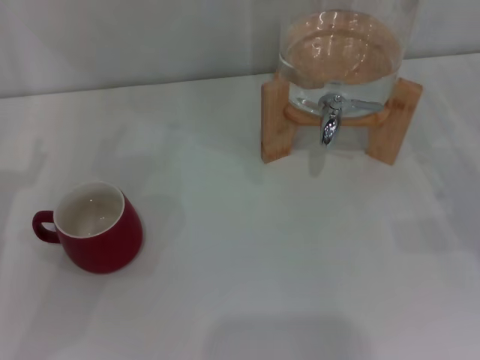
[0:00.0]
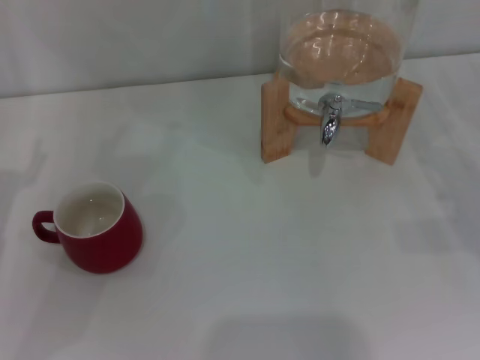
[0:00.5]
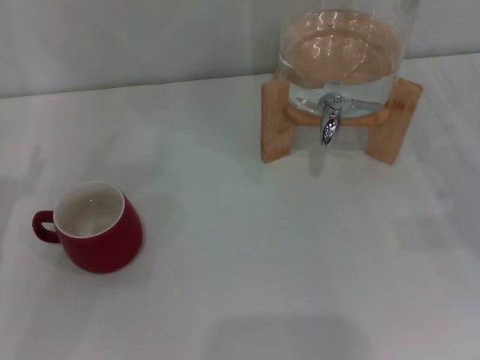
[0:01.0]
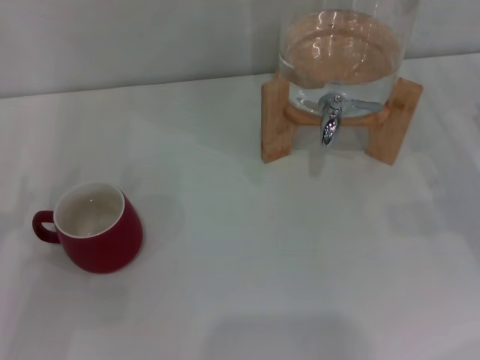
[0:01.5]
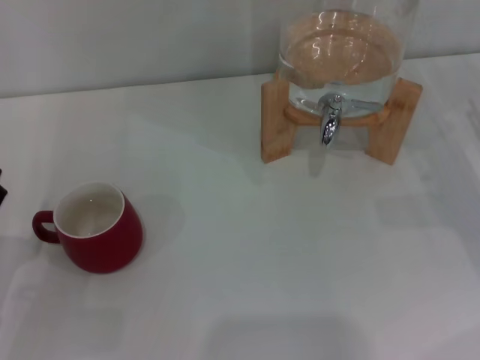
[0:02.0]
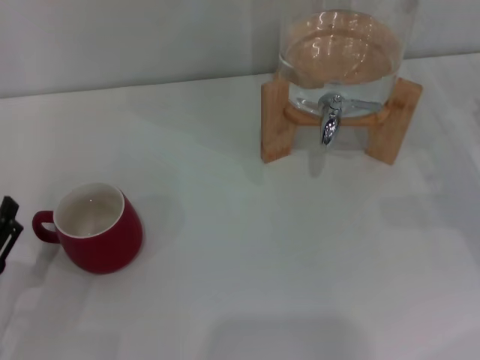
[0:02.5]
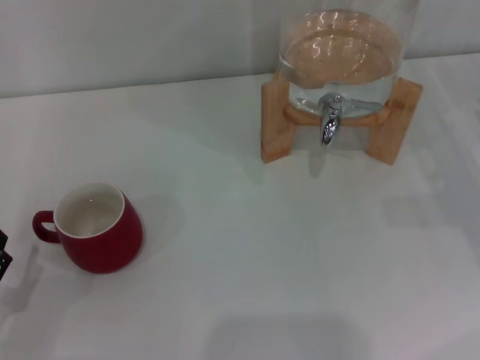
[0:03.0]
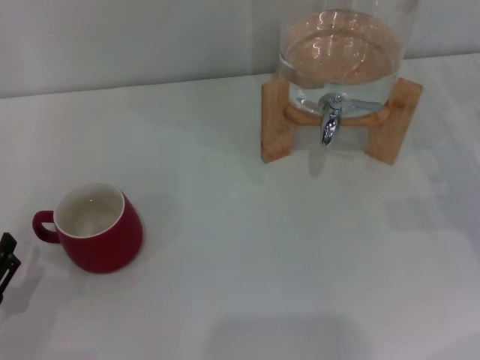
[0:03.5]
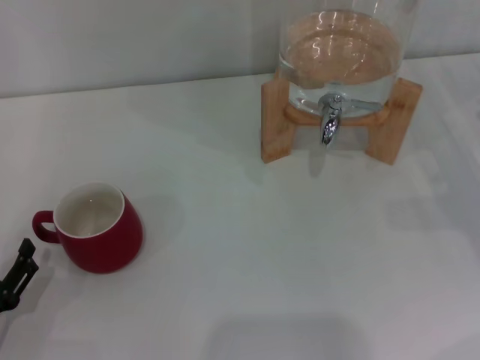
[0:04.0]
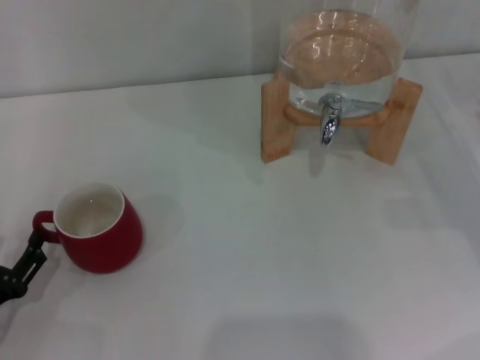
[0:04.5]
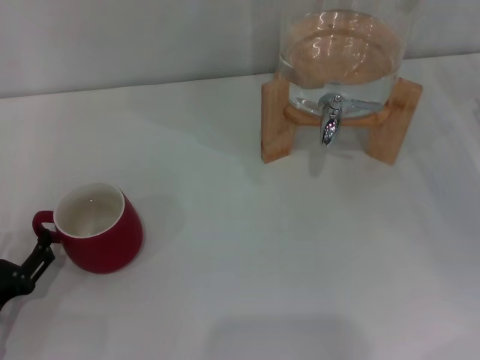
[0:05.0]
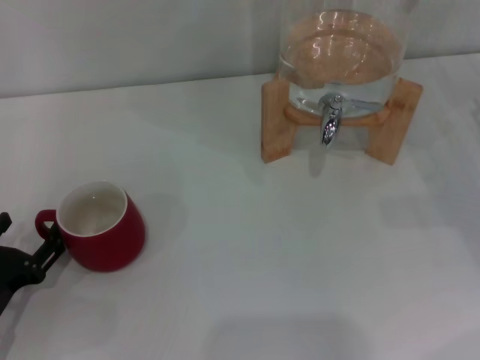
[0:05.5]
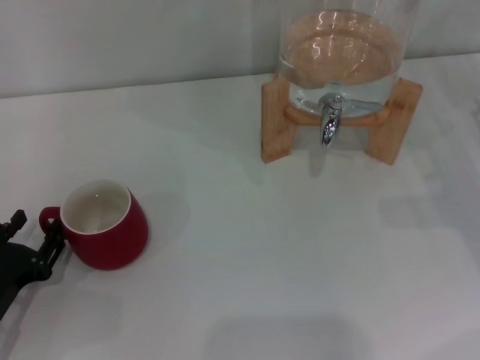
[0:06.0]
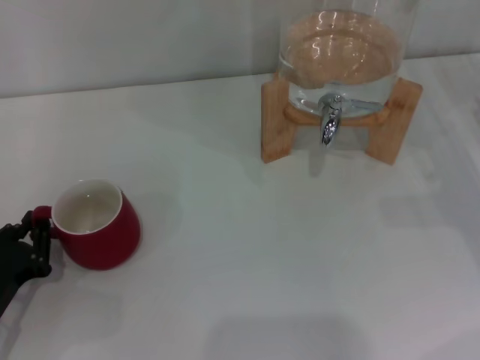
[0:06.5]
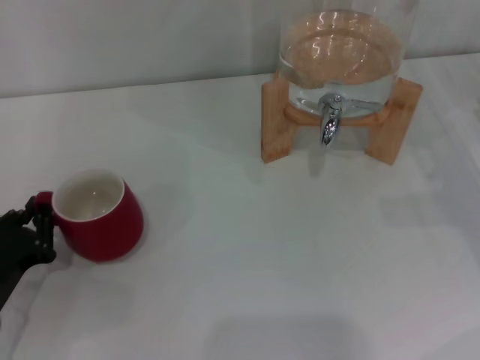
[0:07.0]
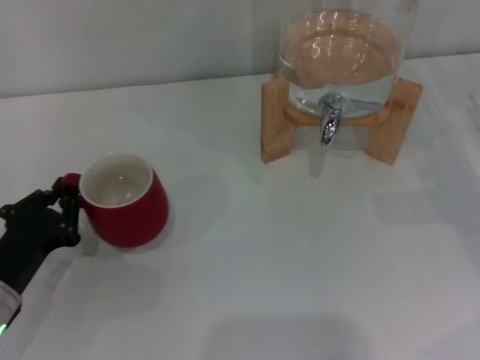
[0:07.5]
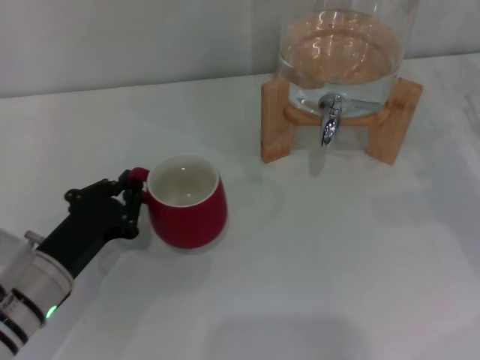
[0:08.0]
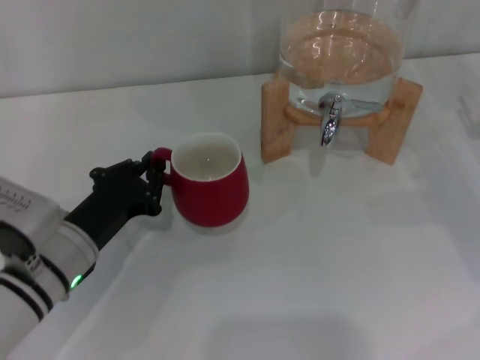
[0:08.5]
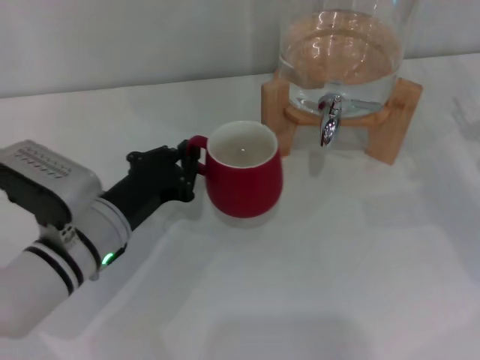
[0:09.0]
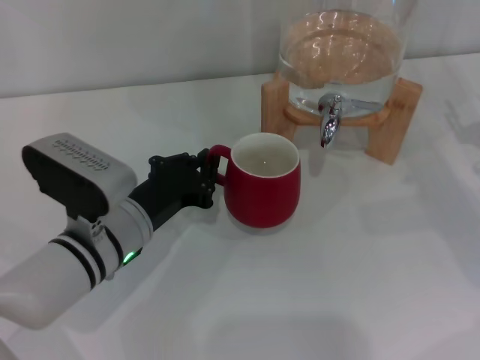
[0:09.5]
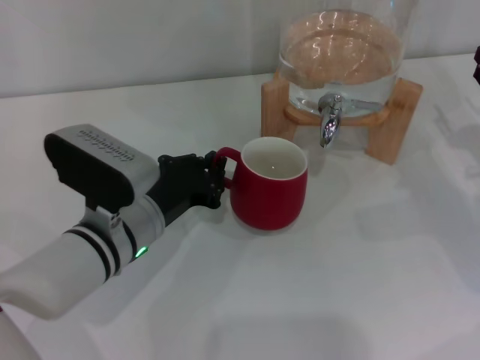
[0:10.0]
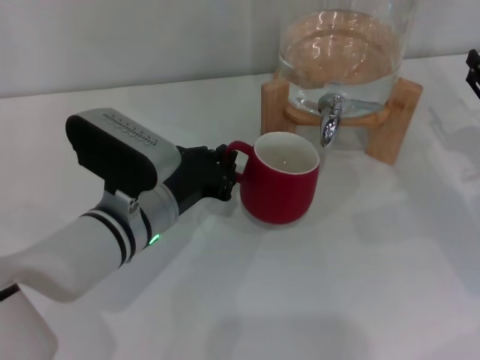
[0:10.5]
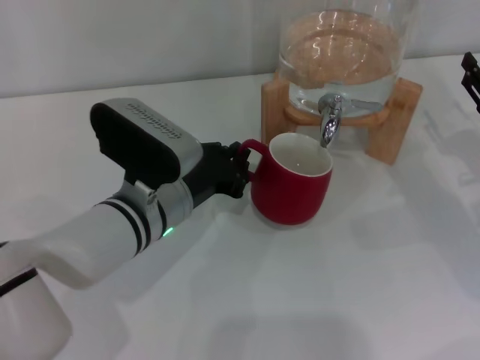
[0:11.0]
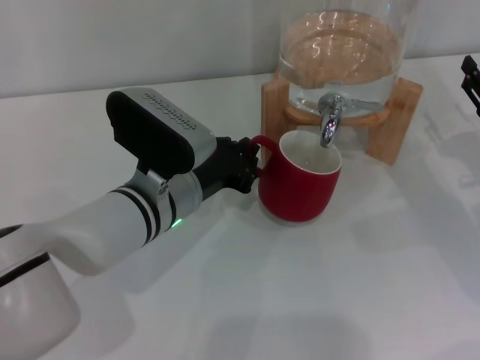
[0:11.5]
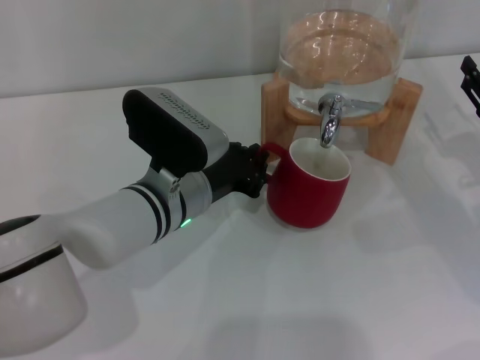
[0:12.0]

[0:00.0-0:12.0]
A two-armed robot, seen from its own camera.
Task of the whole recording: the left gripper pick up the red cup and place it horizontally under the faucet, the right gripper turn on the faucet to fill the cup, and then turn off the faucet.
0:02.0 to 0:04.0: The left gripper moves roughly 5 cm.
0:04.0 to 0:06.0: The grippers move only a little.
0:06.0 to 0:08.0: The left gripper shifts roughly 5 cm to the right, and closes up.
0:08.0 to 0:10.0: The left gripper heads to the right, covering roughly 10 cm.
0:10.0 to 0:12.0: The left gripper moves to the right, some 5 cm.

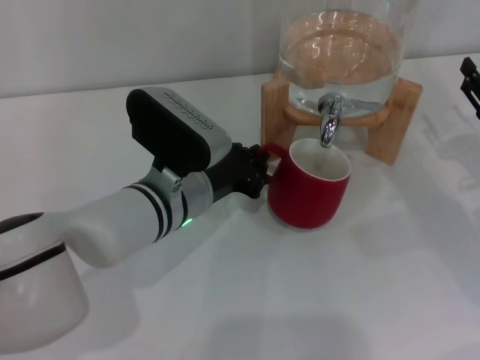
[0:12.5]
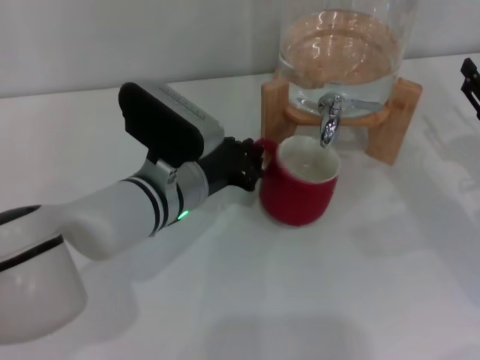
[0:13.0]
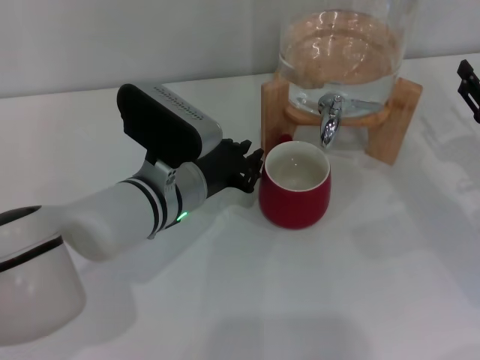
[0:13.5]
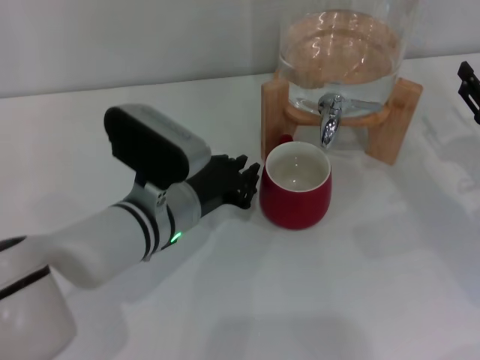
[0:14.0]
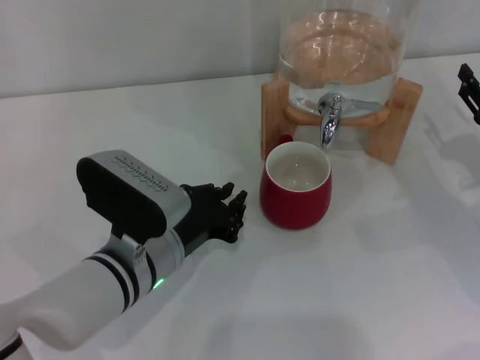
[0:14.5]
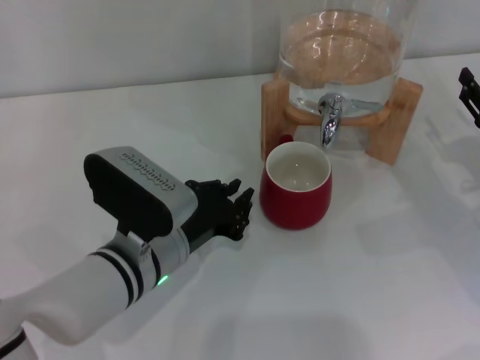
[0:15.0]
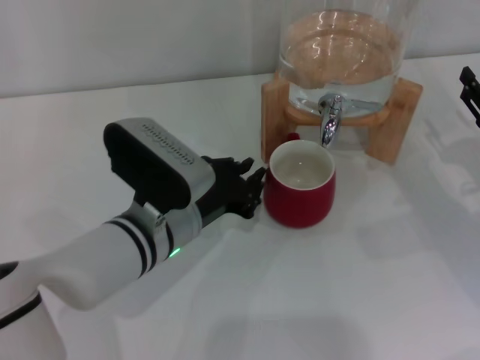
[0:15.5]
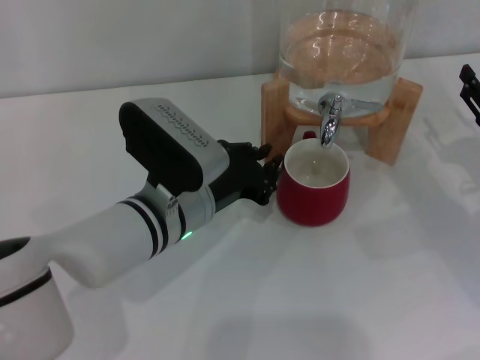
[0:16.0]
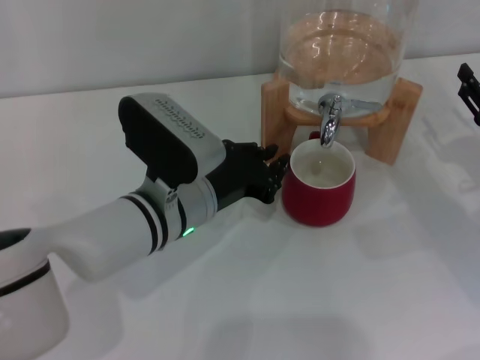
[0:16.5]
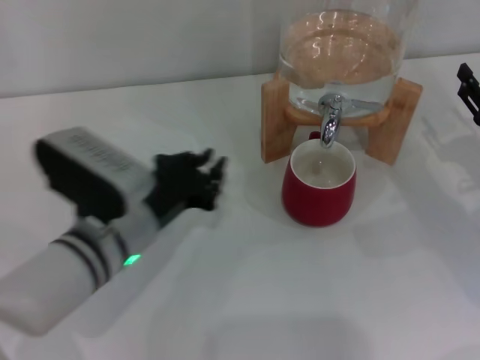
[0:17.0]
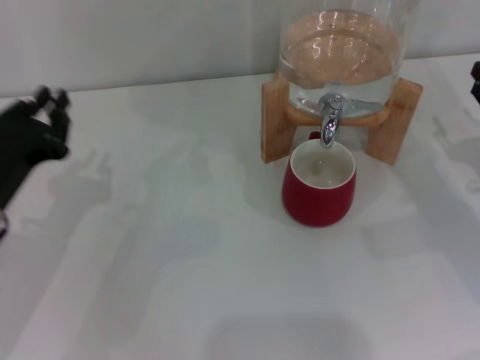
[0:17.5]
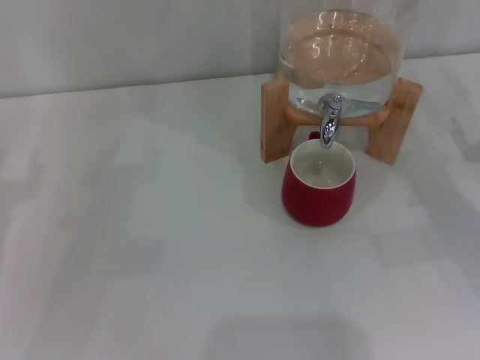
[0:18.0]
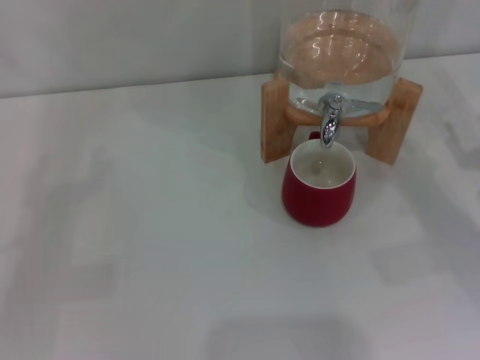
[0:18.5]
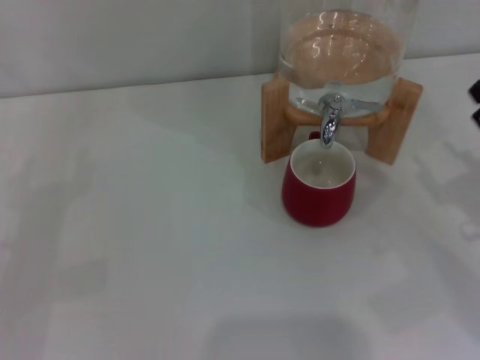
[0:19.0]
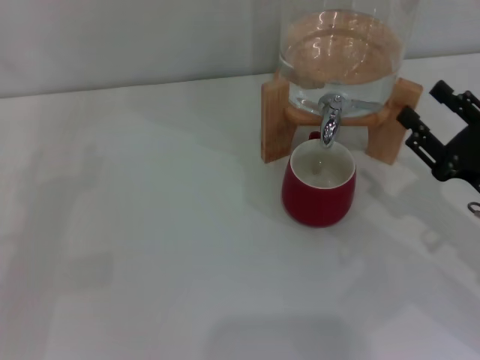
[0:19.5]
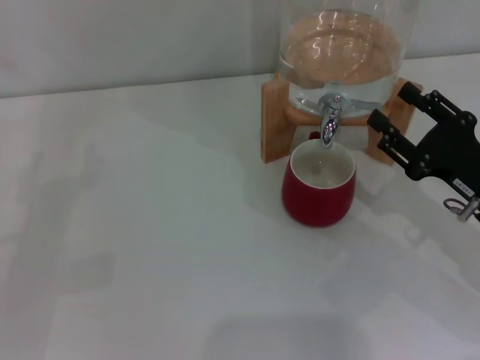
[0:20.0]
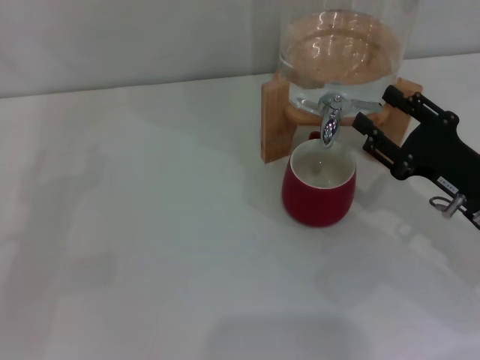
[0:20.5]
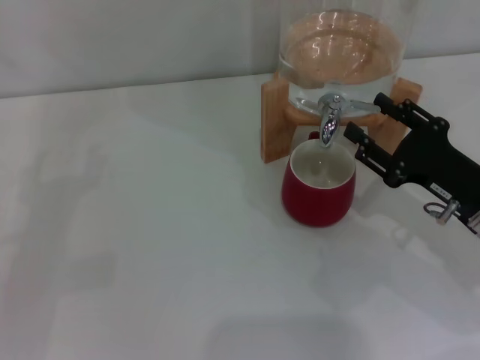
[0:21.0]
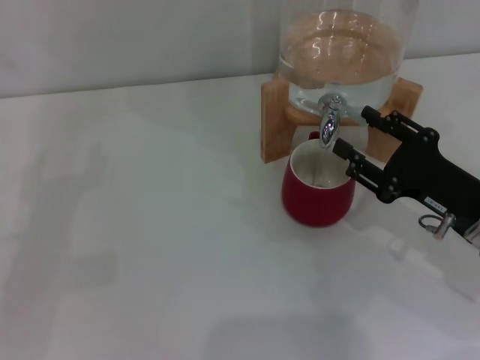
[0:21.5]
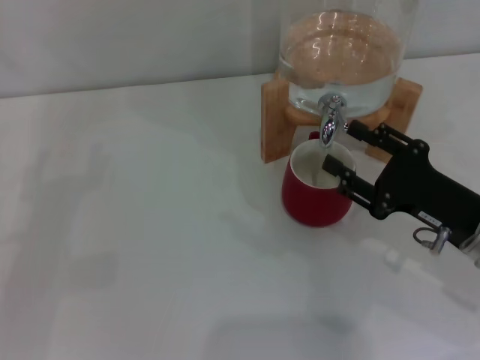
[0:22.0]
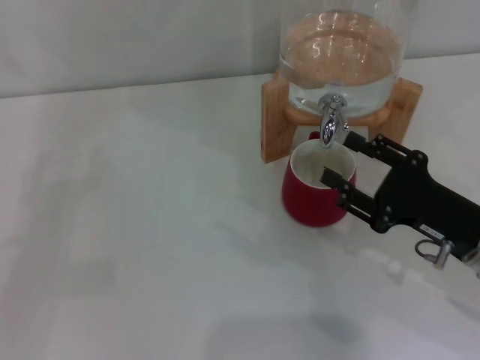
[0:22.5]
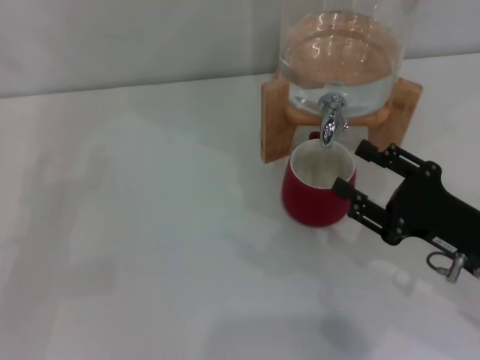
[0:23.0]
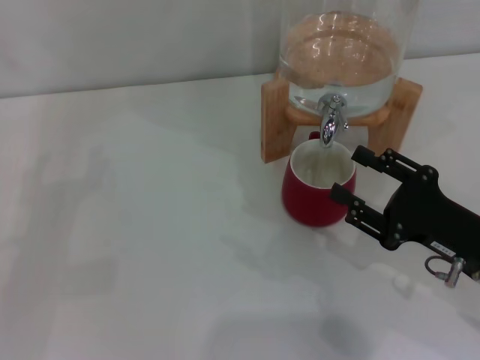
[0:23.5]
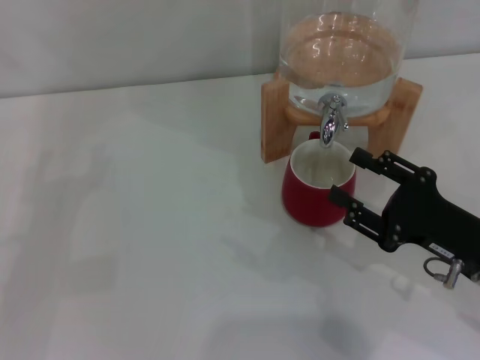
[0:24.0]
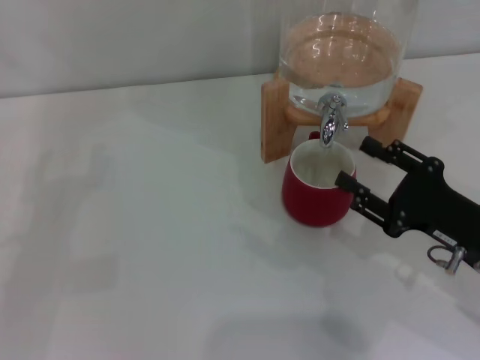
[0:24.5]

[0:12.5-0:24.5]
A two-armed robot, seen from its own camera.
Task of the whole recording: the left gripper pick up the red cup and place it horizontally under the faucet, the right gripper turn on the faucet to fill the cup, and then turn off the faucet.
Step, 0:14.5 to 0:22.5: Open the dispenser valve and fill the cup with water with the right gripper.
0:12.5 to 0:14.5: The left gripper goes approximately 5 cm backward.
0:14.5 to 0:16.5: The left gripper changes place by some 5 cm.
0:16.5 to 0:18.5: The left gripper is displaced to the left by approximately 25 cm, and opens its fingers.
0:18.5 to 0:20.5: The right gripper shifts some 10 cm to the left.
0:20.5 to 0:24.5: The grippers make only small movements.

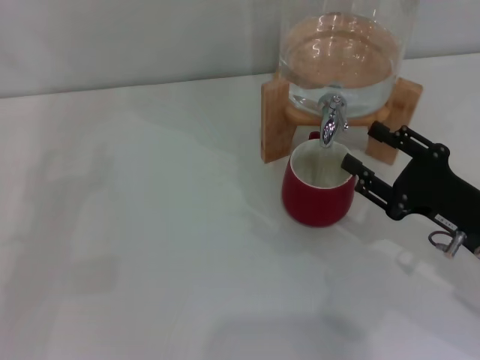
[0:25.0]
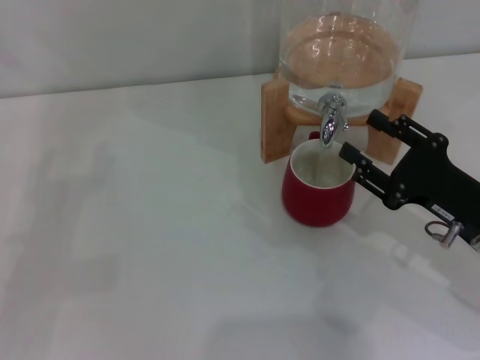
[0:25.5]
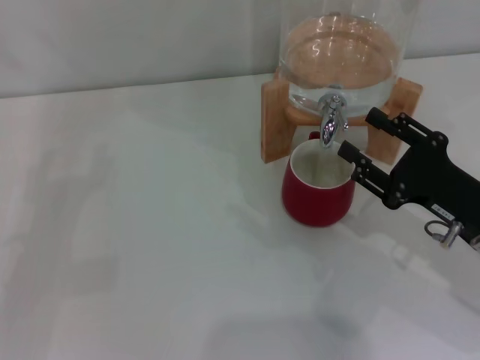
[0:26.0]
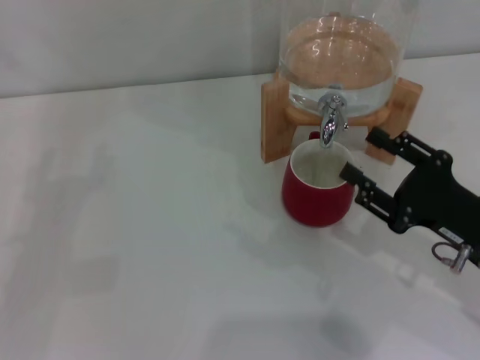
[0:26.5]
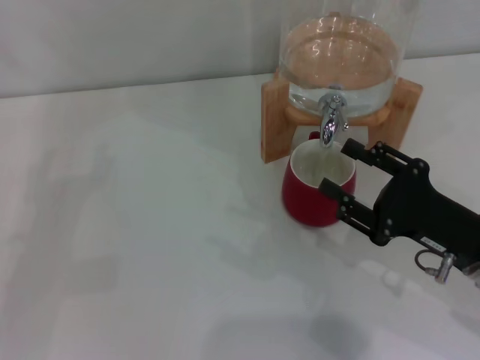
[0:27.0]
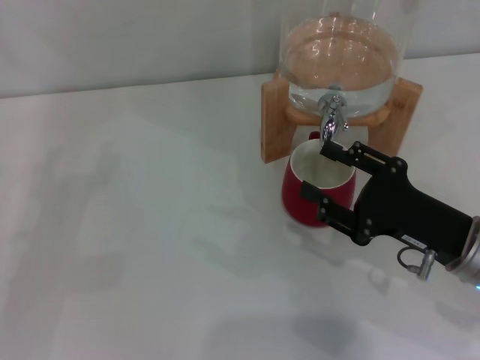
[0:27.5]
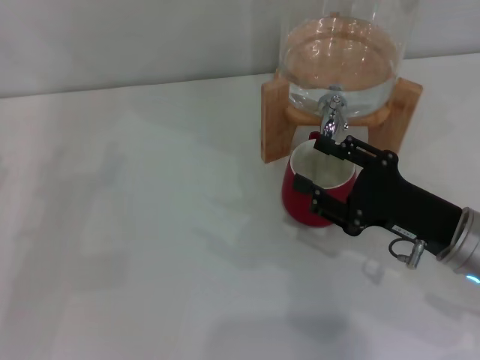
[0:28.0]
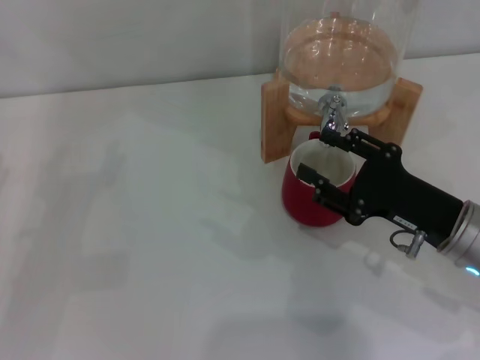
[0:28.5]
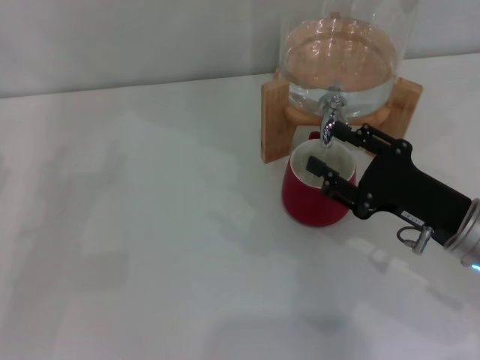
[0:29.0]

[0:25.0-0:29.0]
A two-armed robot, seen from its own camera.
Task of the whole recording: the left gripper pick up the red cup and place it horizontally under the faucet, the right gripper turn on the faucet to fill the cup, and then turn off the faucet.
0:25.0 to 0:29.0: The grippers move only a little.
